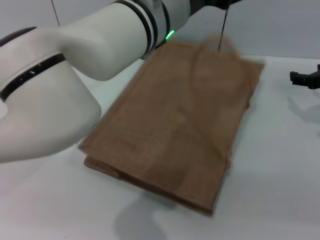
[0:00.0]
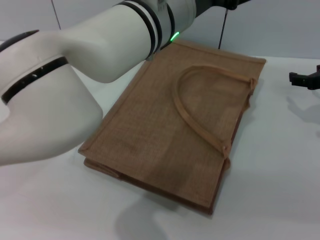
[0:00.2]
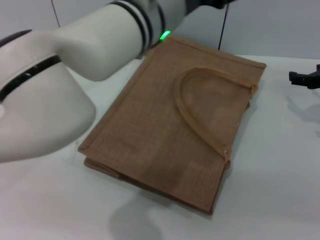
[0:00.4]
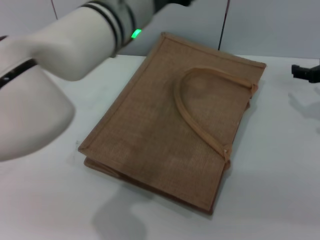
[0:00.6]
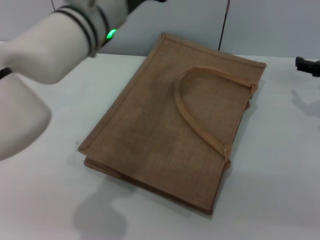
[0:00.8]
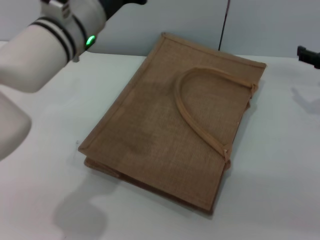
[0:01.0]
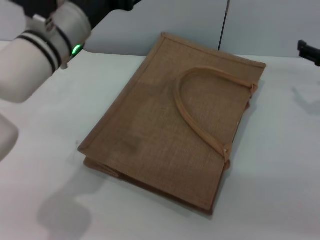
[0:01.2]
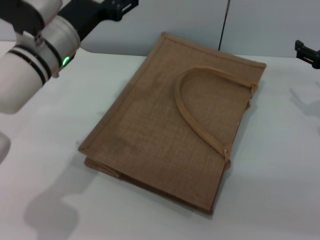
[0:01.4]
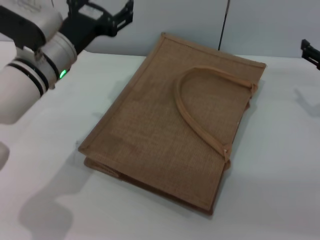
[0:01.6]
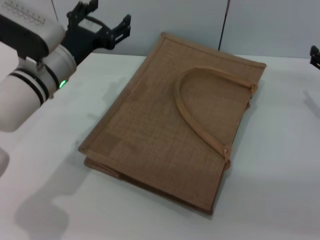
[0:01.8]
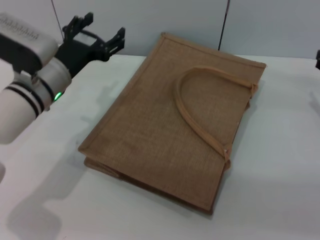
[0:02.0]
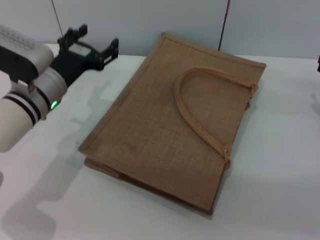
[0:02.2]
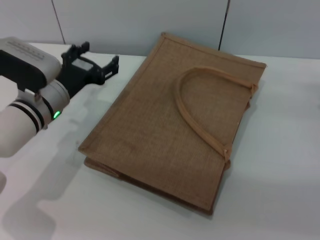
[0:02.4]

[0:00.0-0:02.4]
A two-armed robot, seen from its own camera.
Task of the whole recording: pick up the egg yolk pastry from the table and place it in the brown handbag.
0.0 to 1.2 s: The left gripper moves to the left and downward, some 15 cm.
1.2 to 2.4 s: The left gripper heads downward and to the left, covering approximately 15 cm. Meanwhile the right gripper shifts about 5 cm downward.

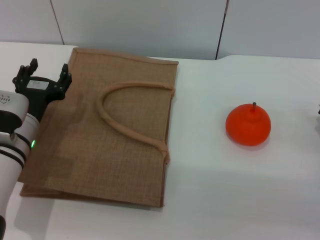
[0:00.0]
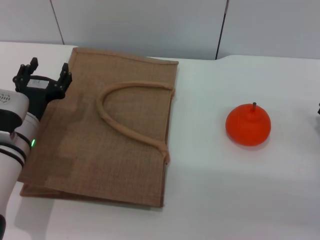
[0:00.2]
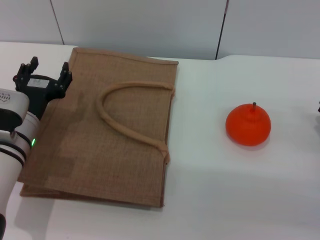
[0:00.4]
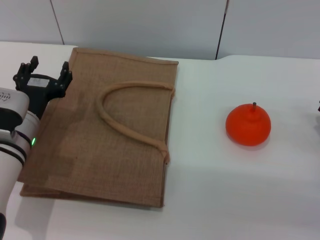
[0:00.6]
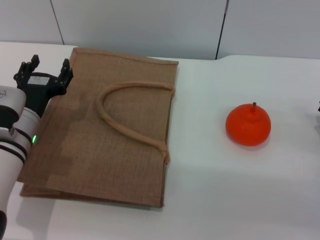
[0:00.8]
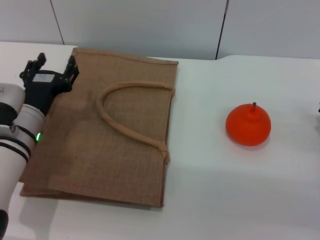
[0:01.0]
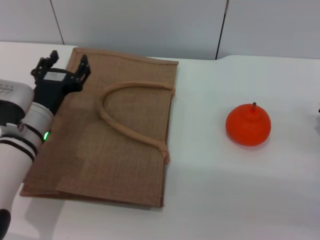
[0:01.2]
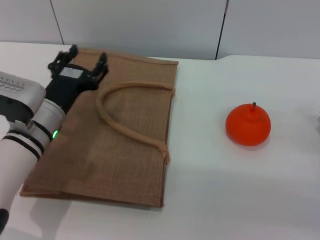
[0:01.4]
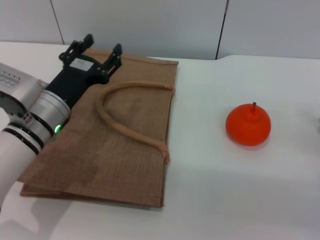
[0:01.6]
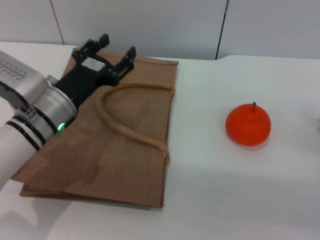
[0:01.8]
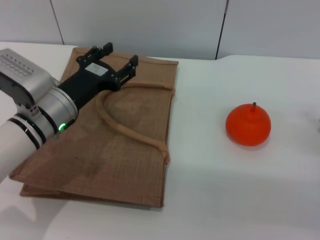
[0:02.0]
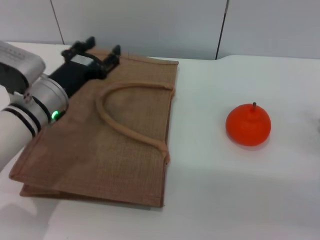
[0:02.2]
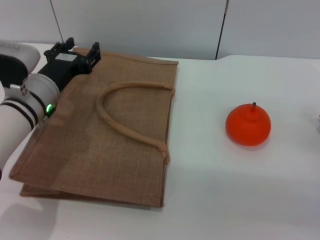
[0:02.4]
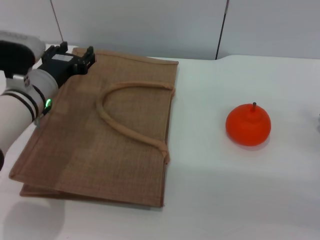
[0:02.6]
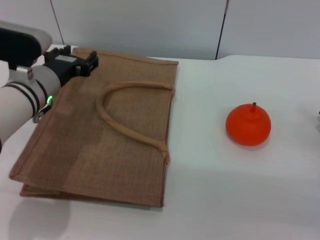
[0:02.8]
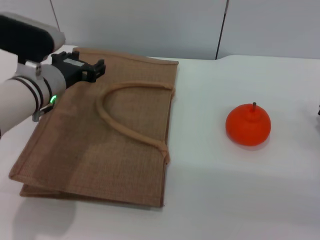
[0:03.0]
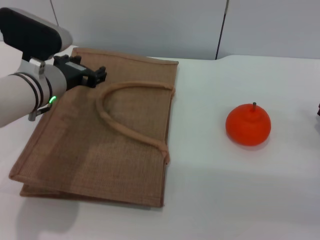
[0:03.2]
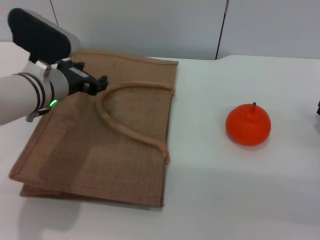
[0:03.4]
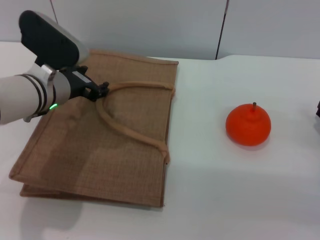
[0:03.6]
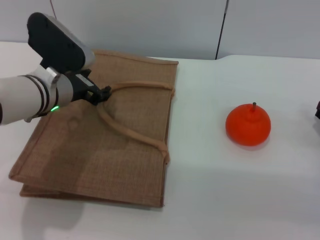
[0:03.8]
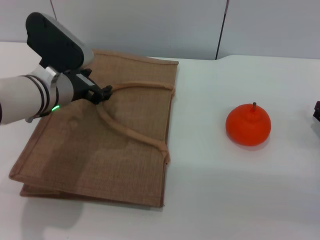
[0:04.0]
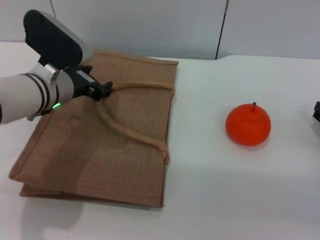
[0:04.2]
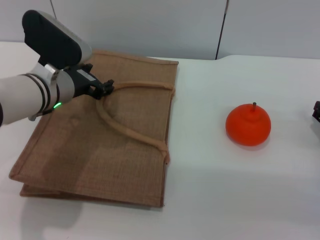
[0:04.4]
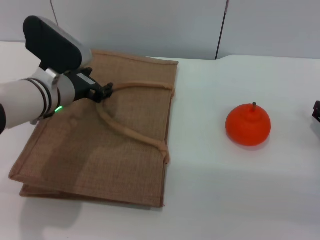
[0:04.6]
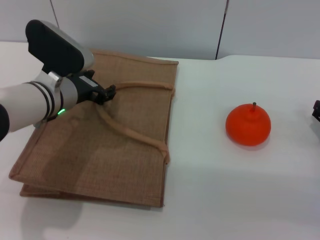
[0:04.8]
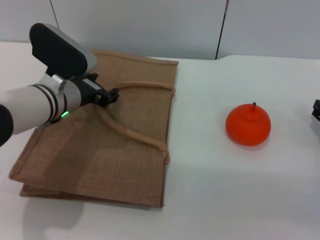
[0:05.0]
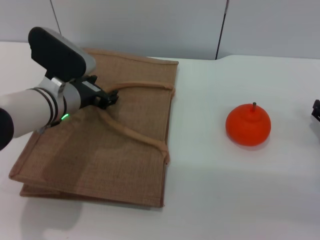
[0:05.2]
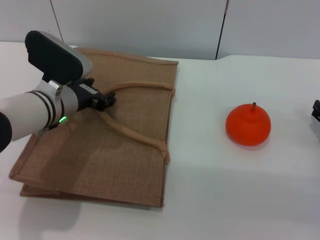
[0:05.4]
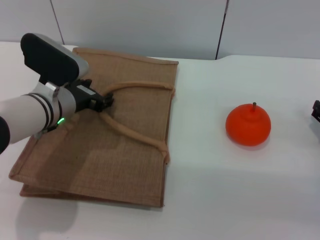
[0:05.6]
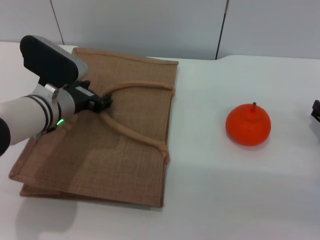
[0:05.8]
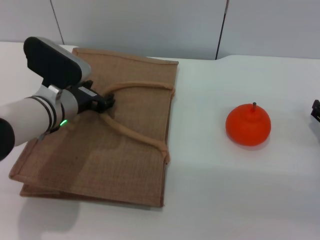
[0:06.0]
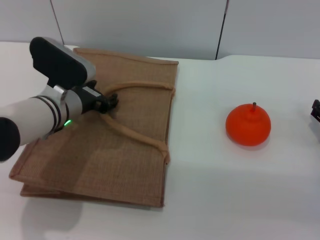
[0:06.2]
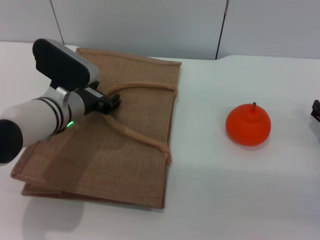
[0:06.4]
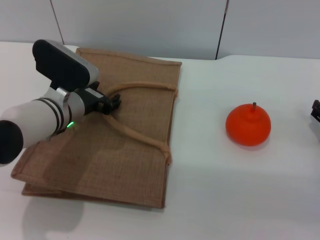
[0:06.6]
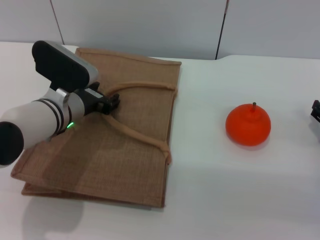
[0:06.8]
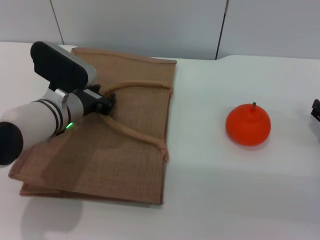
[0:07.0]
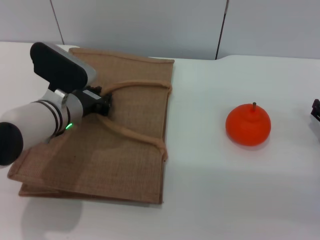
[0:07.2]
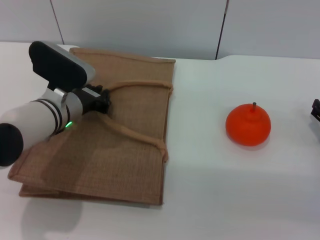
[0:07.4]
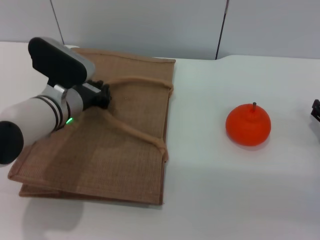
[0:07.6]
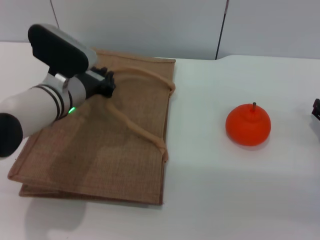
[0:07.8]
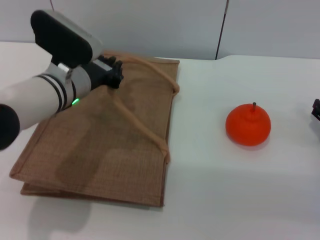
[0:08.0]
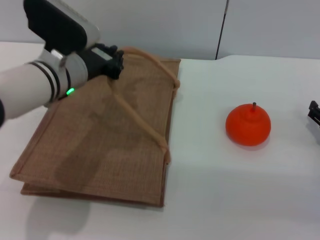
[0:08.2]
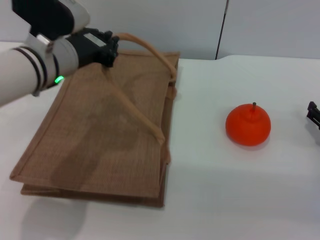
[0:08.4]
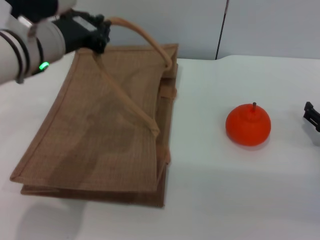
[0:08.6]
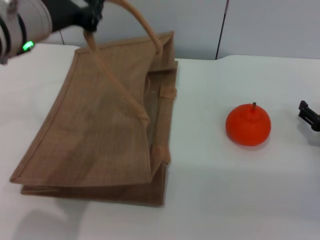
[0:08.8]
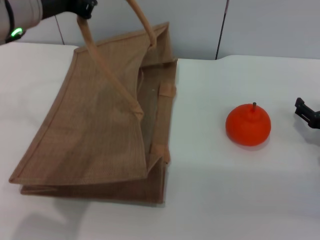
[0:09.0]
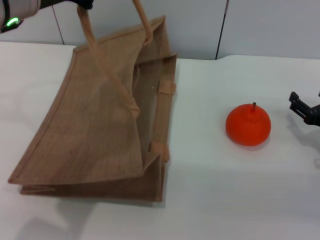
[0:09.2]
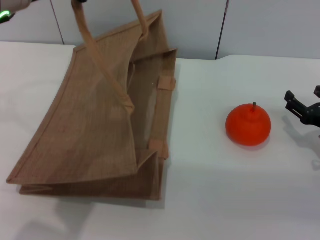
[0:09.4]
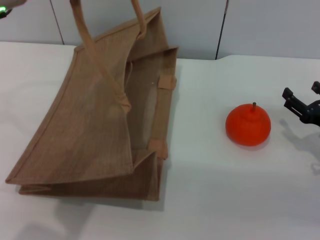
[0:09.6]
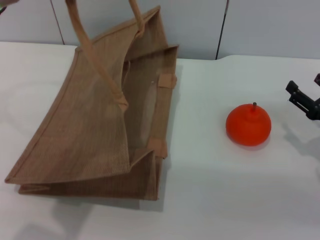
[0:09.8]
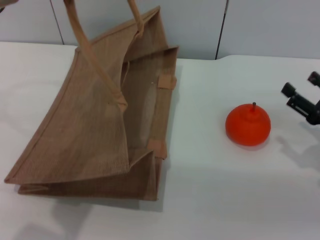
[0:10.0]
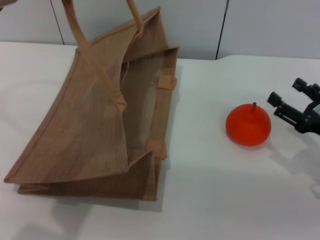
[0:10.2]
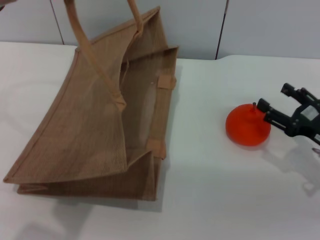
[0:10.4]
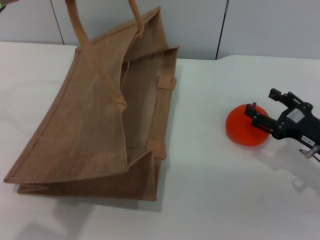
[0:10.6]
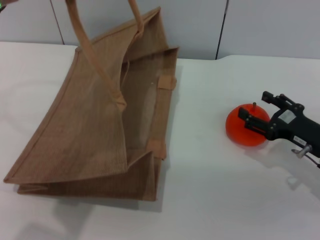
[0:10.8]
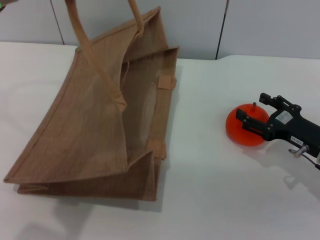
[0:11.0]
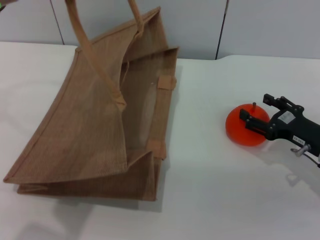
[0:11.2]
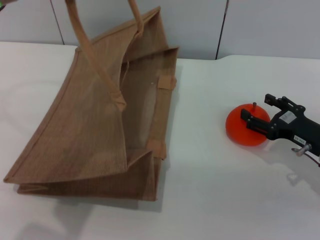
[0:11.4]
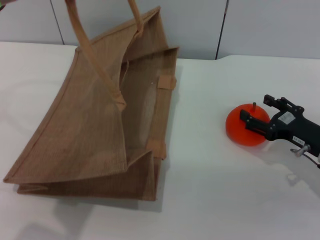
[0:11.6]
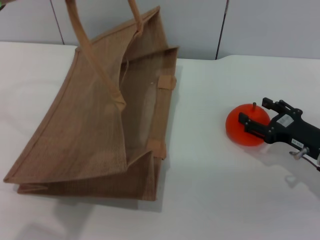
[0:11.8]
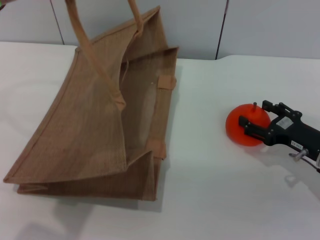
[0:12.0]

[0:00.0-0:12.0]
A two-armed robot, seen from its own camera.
Task of the whole recording: pick up the orange from the table and place it in the brown handbag.
Step, 0.0 to 9.0 s: Lift the woven bag with the left gripper to open it.
0.0 to 1.6 s: The left gripper ends up some 5 cm from where it was.
1.6 to 3.0 s: The left gripper shifts by approximately 5 cm.
4.4 to 6.0 s: The grippers stay close to where they were, moving slightly.
6.0 to 7.6 s: The left gripper closes.
7.6 to 9.0 s: The left gripper is displaced upward by approximately 20 cm.
10.4 to 12.0 s: The grippers move only a little.

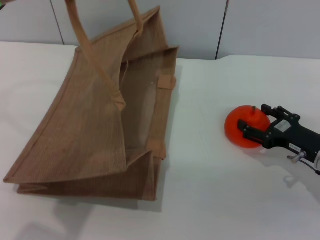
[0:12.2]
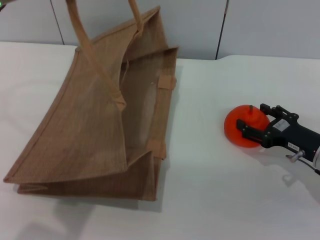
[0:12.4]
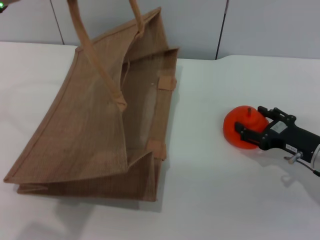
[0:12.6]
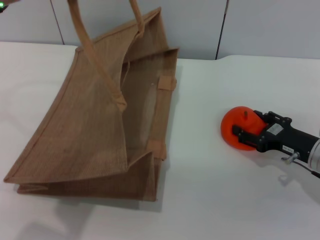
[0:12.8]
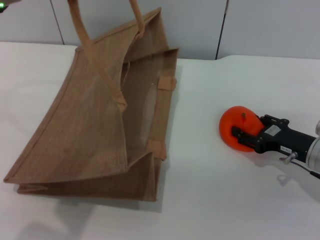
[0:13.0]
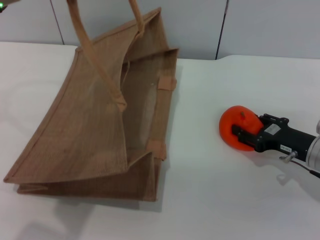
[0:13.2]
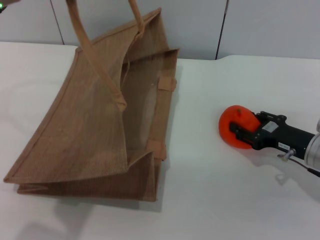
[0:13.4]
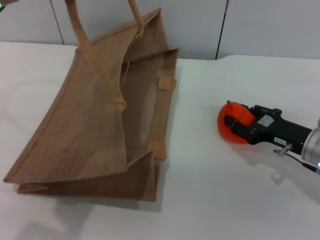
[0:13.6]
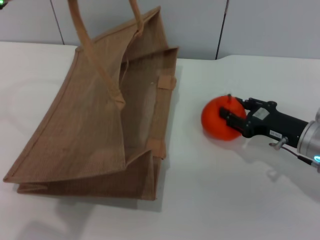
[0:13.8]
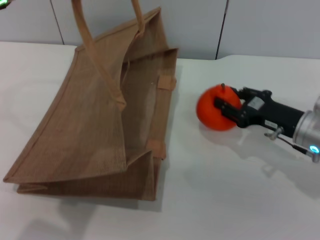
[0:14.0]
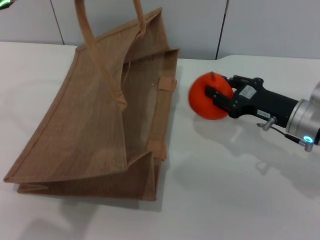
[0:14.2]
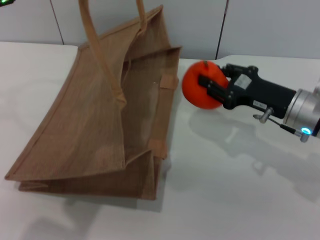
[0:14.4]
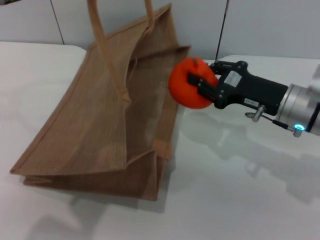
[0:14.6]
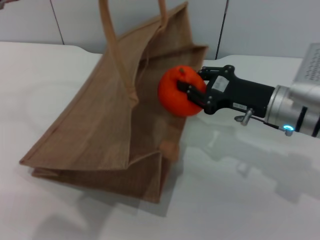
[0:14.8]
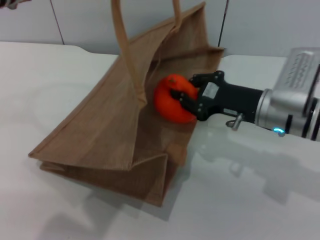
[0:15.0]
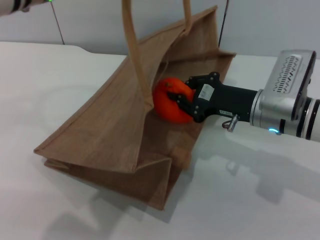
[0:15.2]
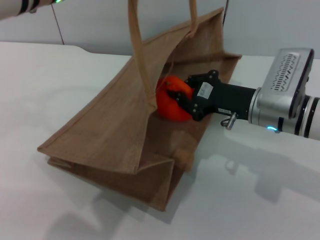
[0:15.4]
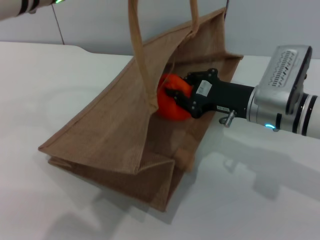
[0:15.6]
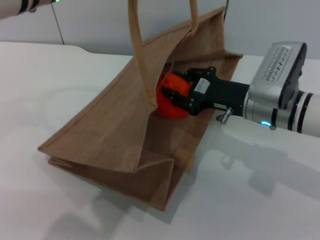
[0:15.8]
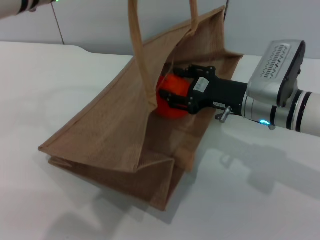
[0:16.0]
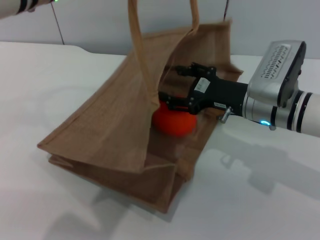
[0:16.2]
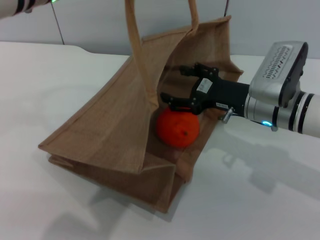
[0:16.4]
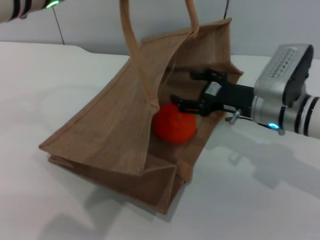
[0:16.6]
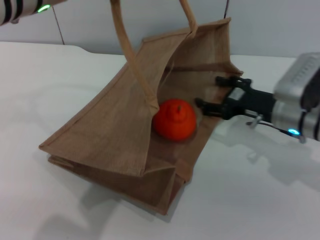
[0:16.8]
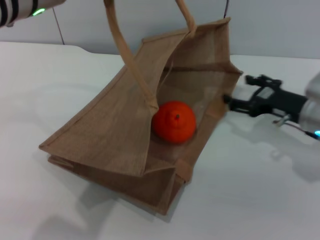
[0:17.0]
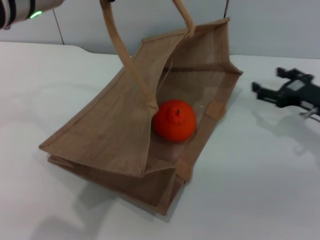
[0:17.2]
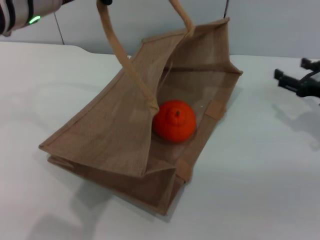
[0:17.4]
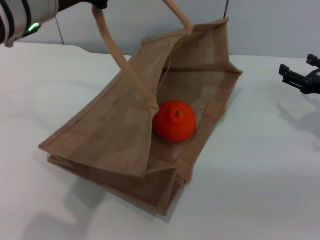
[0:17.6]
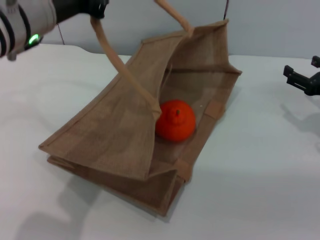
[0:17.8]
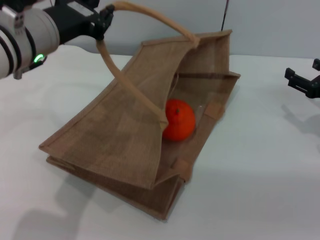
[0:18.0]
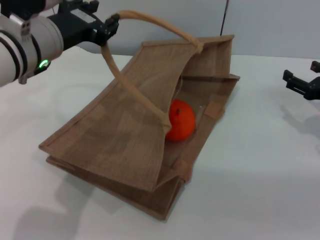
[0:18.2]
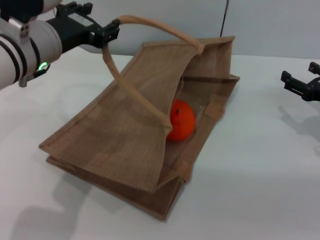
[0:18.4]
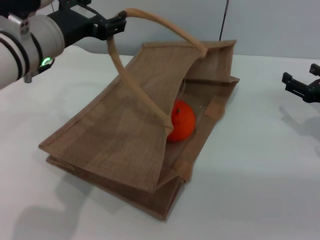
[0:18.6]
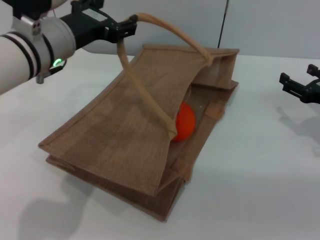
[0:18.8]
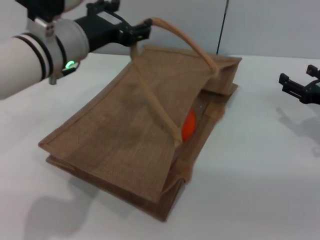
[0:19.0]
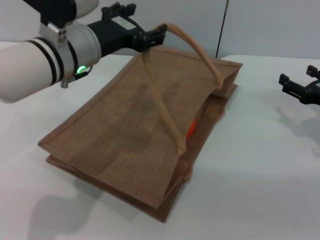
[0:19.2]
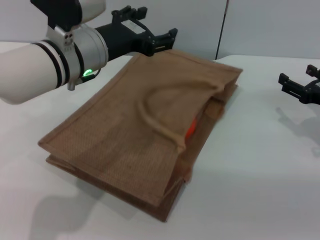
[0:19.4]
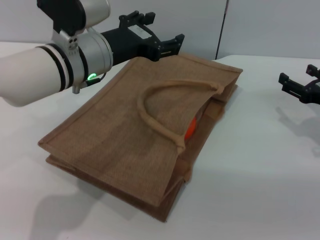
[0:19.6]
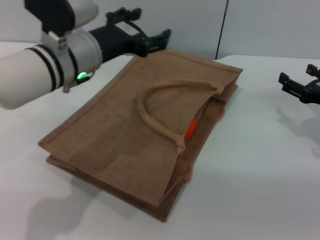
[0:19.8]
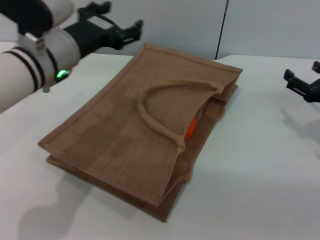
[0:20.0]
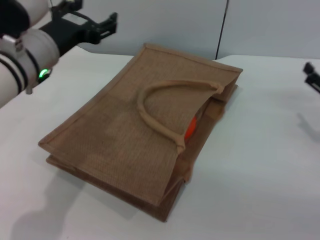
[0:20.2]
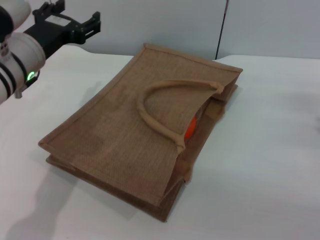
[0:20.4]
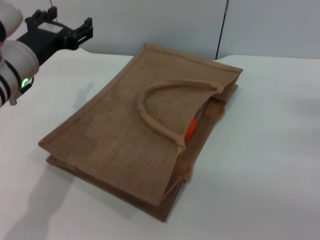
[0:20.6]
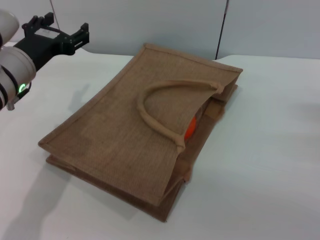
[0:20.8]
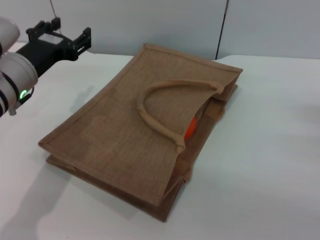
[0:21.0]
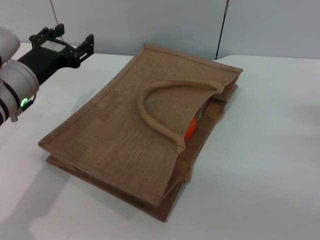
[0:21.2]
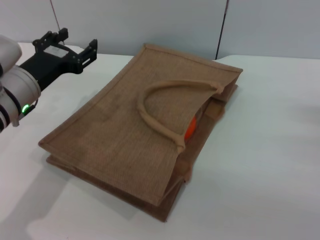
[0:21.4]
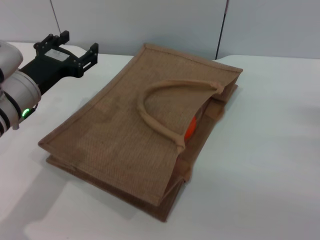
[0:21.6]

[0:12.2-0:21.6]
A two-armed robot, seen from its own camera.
Task of the whole recording: pick up the orange from the table and place it in the brown handbag.
Step, 14.0 to 16.4 s: Place the orange into the woven bag with the right gripper.
Step, 16.6 to 19.6 s: Lower the woven bag with the left gripper to close it.
12.2 to 13.8 s: The right gripper closes its fingers.
13.8 to 15.4 s: The right gripper is displaced to the left by about 10 cm, and closes its fingers. Meanwhile the left gripper is displaced to the right by roughly 5 cm.
15.4 to 17.0 s: The right gripper is displaced to the right by approximately 10 cm, and opens.
17.0 to 18.4 s: The right gripper is displaced to the right by approximately 5 cm. The left gripper shifts about 10 cm downward, and opens.
18.4 to 20.0 s: The left gripper opens its fingers.
20.0 to 21.6 s: The left gripper heads downward and to the left, covering approximately 10 cm. Meanwhile the right gripper goes roughly 5 cm backward.
